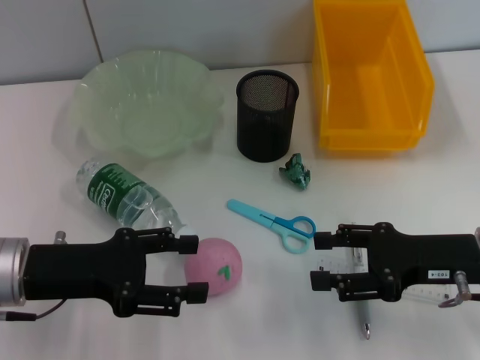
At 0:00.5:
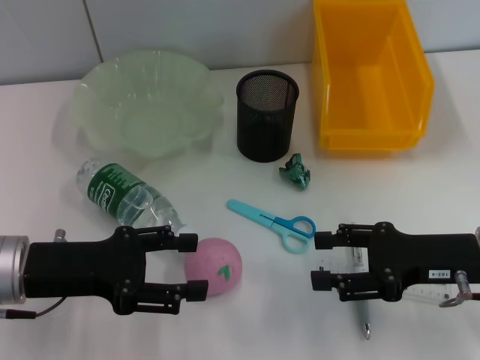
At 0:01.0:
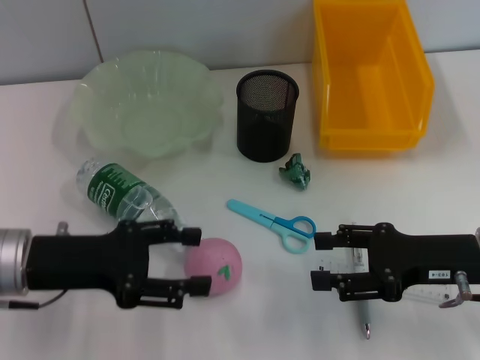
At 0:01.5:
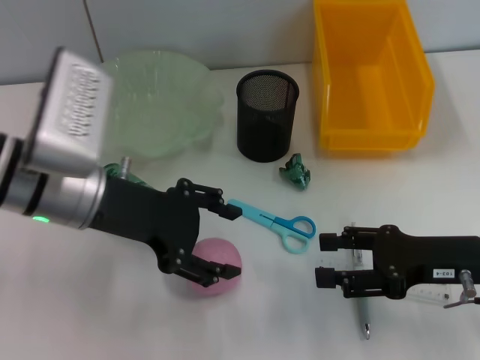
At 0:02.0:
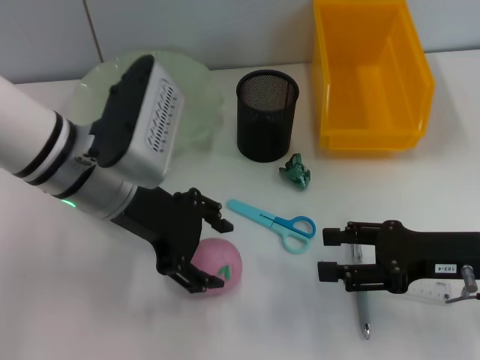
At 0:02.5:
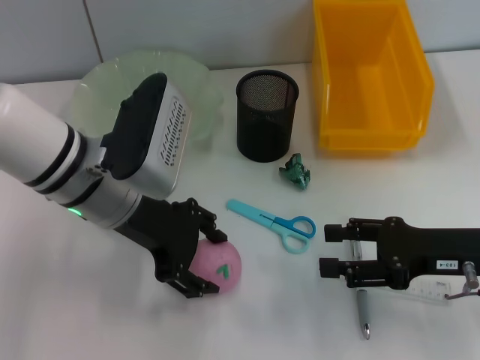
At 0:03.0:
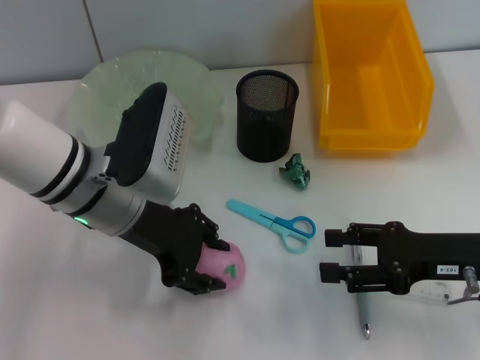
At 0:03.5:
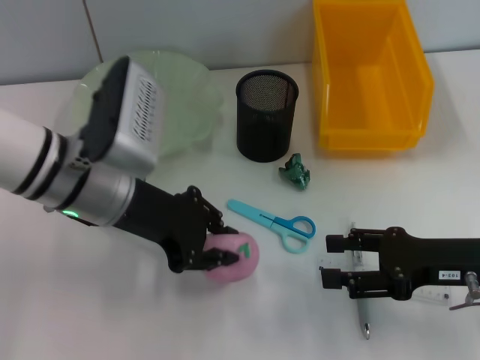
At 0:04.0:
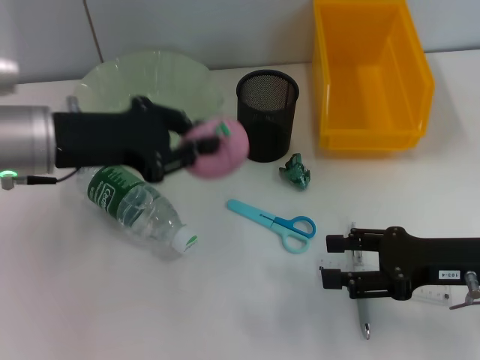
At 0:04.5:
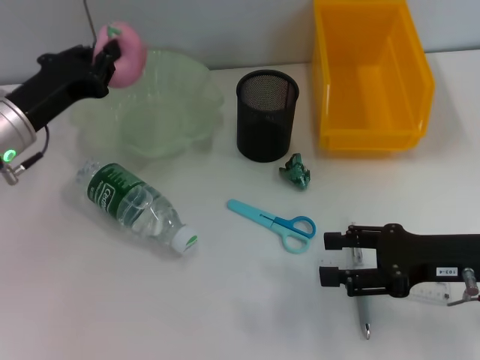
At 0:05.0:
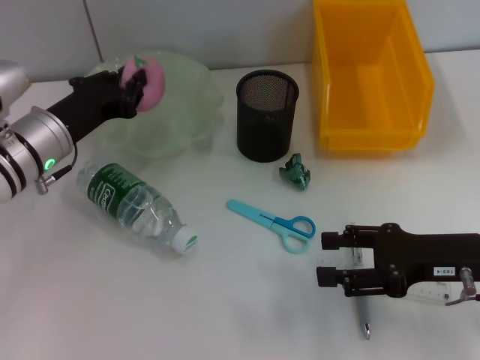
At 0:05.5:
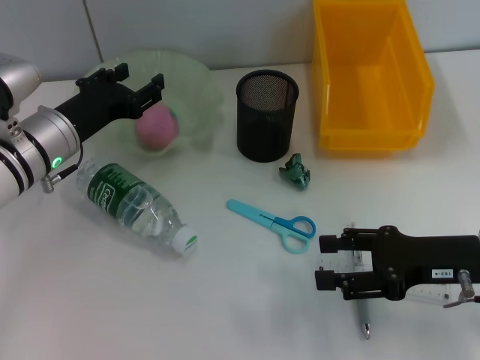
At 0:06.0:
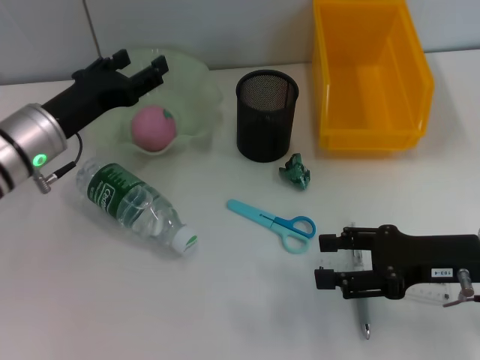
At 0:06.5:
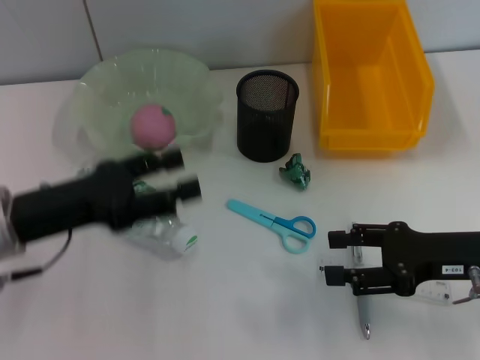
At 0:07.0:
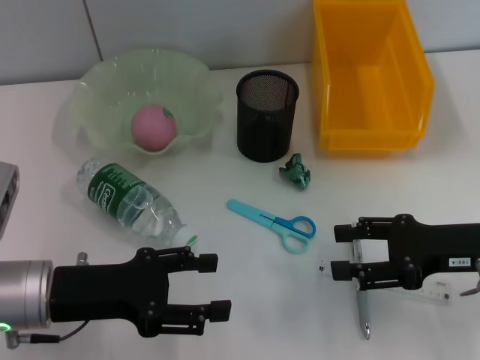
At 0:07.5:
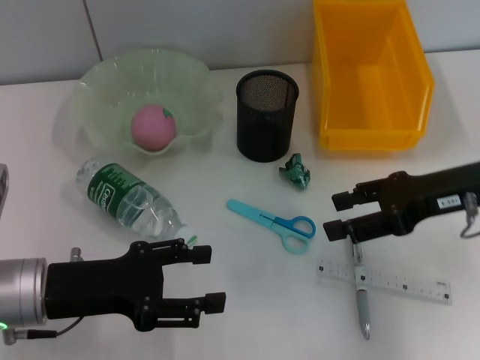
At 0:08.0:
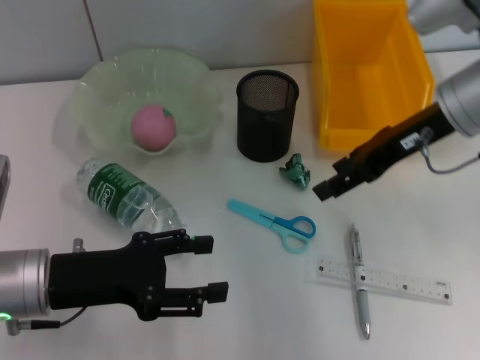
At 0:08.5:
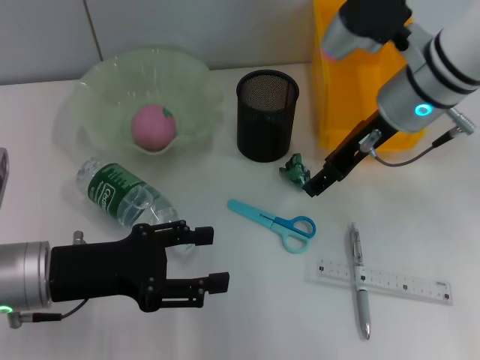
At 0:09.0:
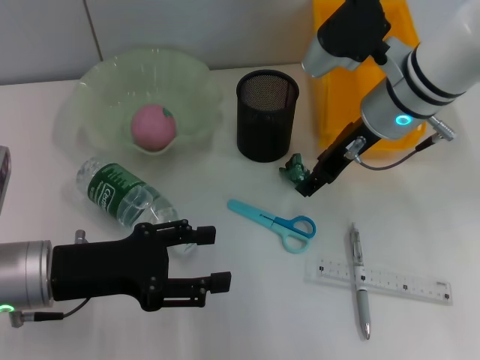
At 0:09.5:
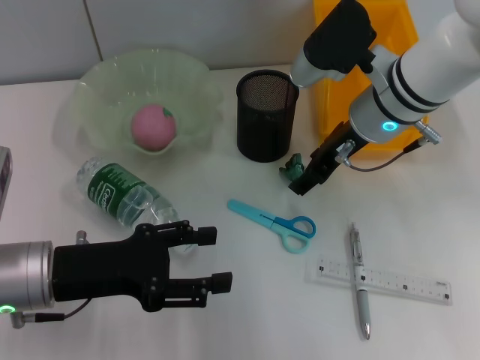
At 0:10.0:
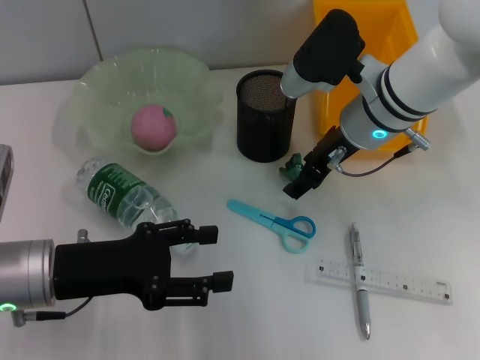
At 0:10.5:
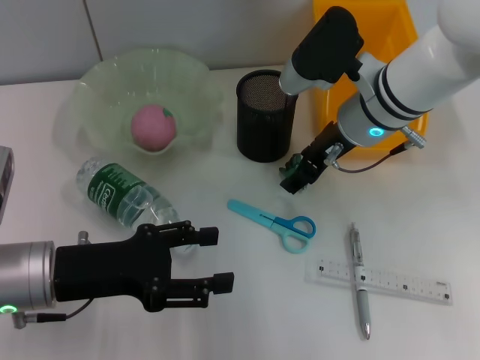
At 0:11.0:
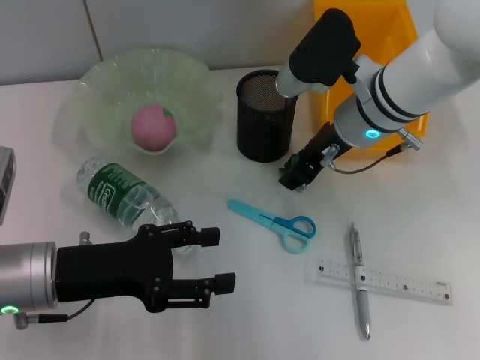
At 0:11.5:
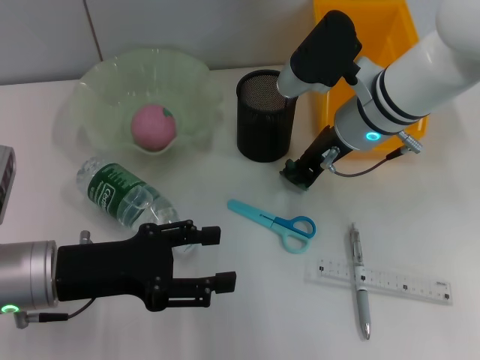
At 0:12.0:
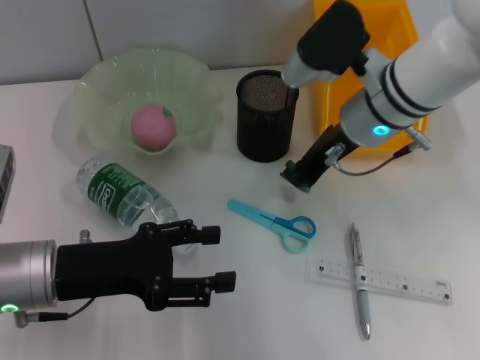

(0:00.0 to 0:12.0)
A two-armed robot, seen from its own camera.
Step, 0:00.0 - 0:03.0: Grab the peach with the left hand.
Step, 0:03.5 - 0:05.5: Place the peach into the fruit bowl with the left hand.
Step, 0:06.0 - 0:11.0: Grab the plastic with the right hand.
0:00.0 - 0:02.0: The left gripper goes approximately 15 cm to the right, upward and forward.
0:02.0 - 0:04.0: The left gripper shifts roughly 5 cm to the left, and closes.
0:04.0 - 0:06.0: The left gripper shifts about 5 cm downward, and opens up.
0:06.0 - 0:08.0: The right gripper heads upward and forward, covering about 15 cm; the left gripper goes roughly 10 cm backward.
0:08.0 - 0:10.0: The right gripper goes about 10 cm to the left and downward.
0:10.0 - 0:12.0: The right gripper closes up.

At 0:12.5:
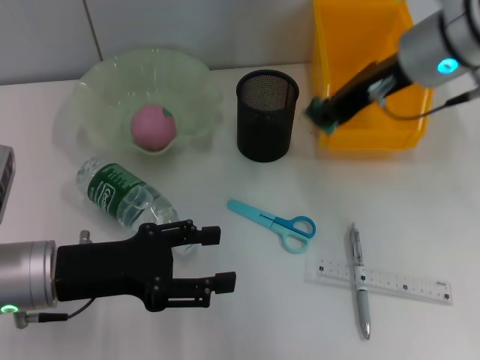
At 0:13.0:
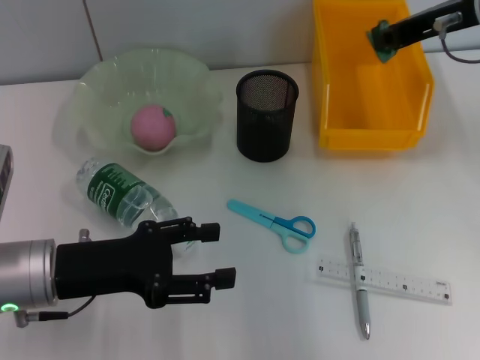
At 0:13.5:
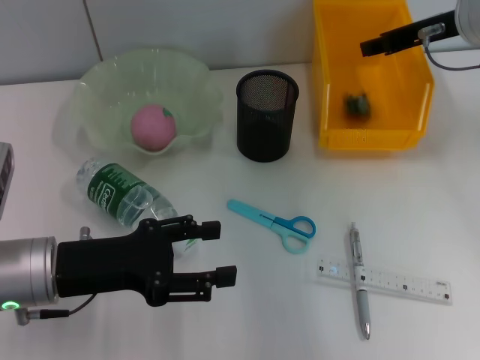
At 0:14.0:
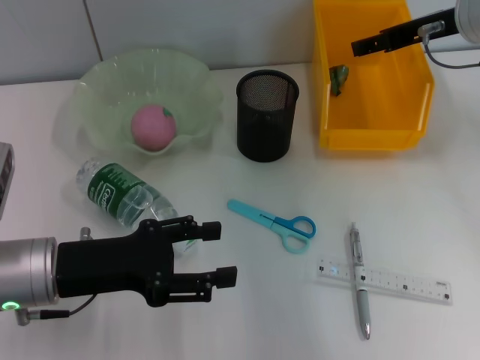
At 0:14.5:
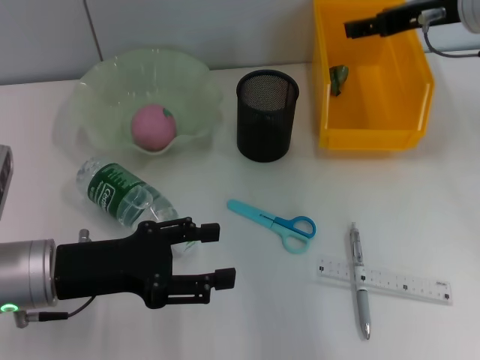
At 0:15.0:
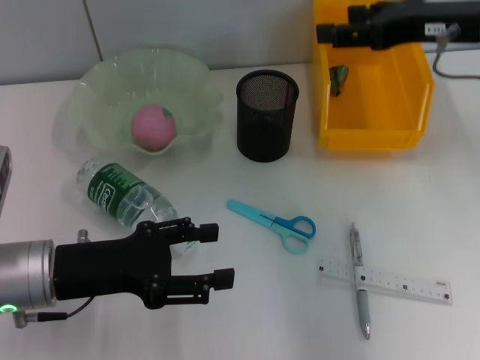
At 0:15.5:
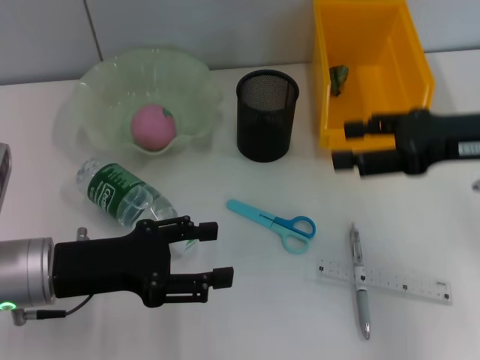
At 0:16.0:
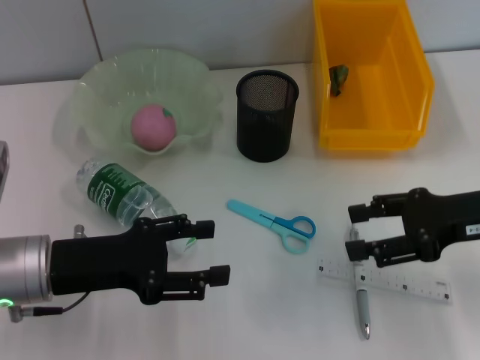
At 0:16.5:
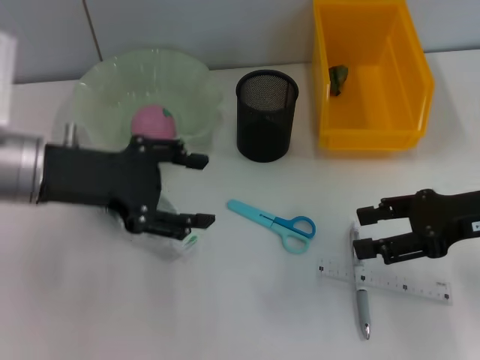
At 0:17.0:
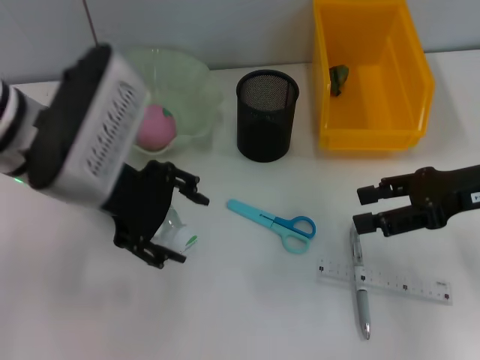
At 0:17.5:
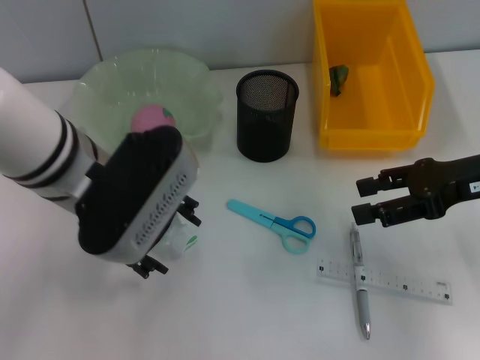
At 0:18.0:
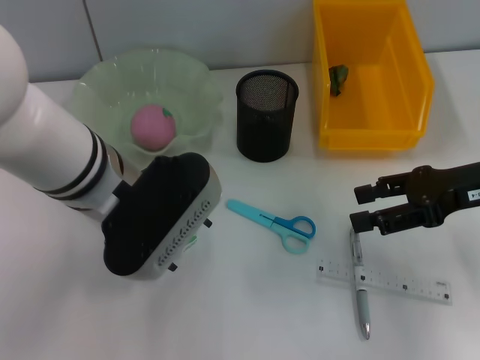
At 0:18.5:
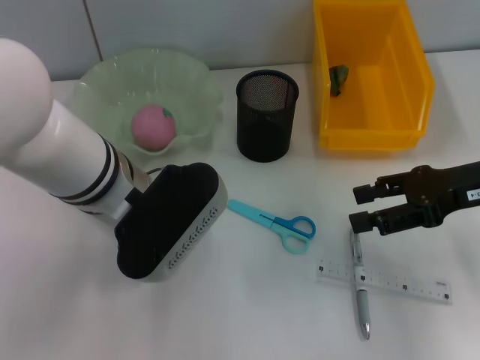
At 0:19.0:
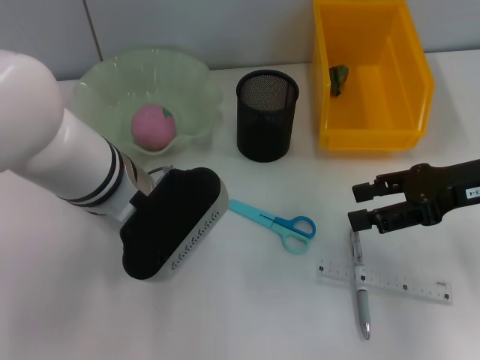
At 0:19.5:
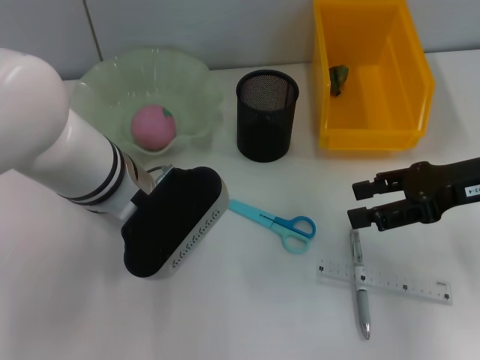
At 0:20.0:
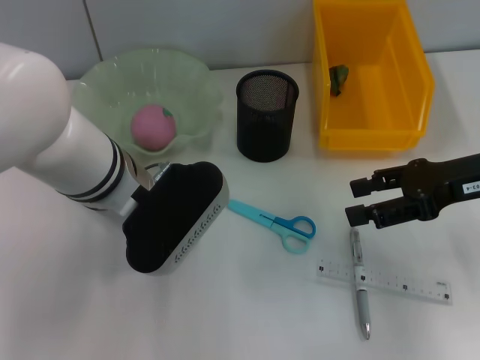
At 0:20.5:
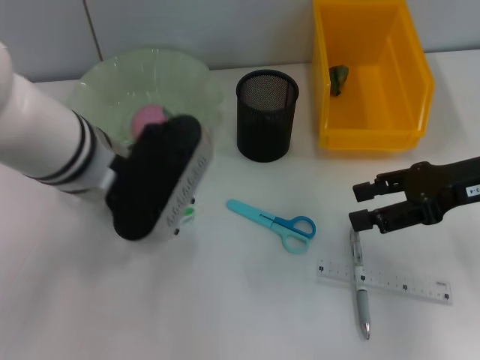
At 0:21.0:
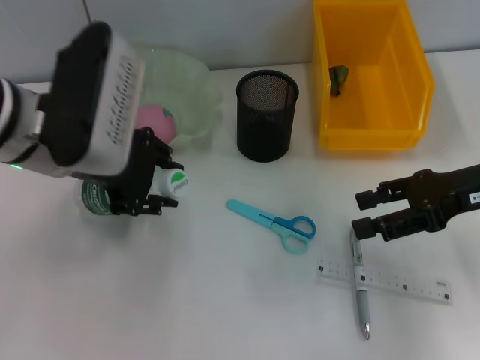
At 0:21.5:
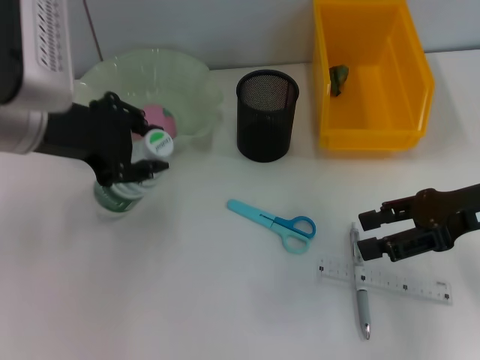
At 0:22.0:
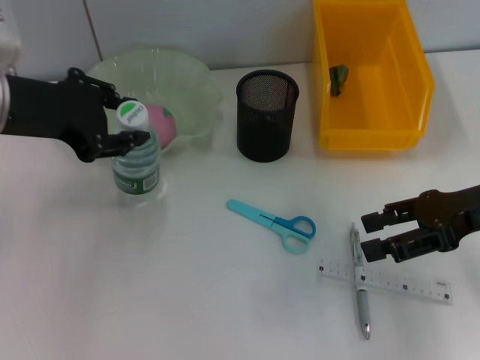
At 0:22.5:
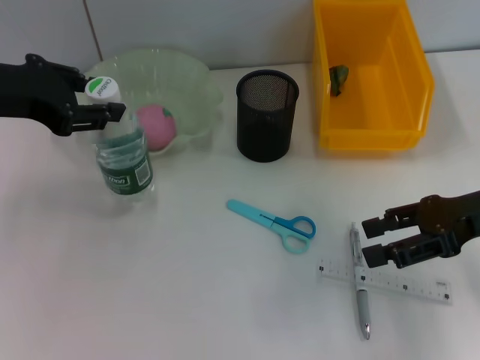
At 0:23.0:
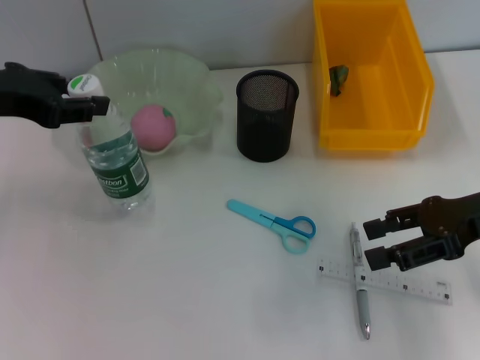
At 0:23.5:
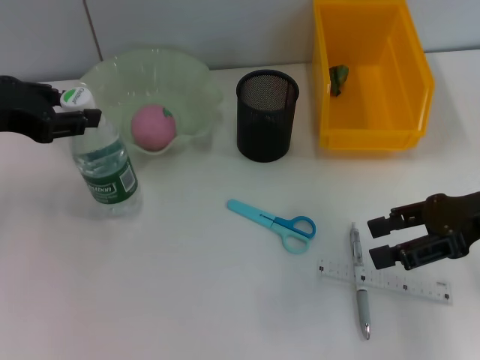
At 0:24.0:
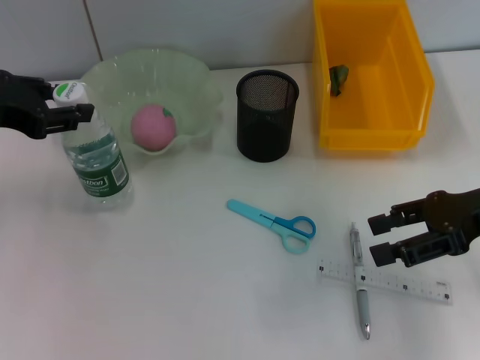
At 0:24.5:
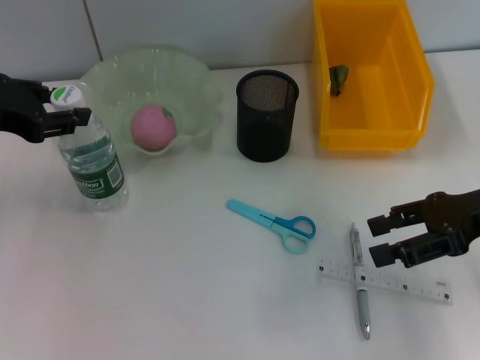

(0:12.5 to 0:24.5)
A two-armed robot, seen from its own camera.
Step, 0:12.5 - 0:13.5: Place the plastic into the trash can with the right hand.
Step, 0:14.0 - 0:20.0: Grab the water bottle with the left hand.
0:12.5 - 0:14.5: The right gripper heads to the right, covering approximately 5 cm, and opens its fingers.
0:14.5 - 0:16.5: The right gripper goes about 15 cm backward and downward. The left gripper heads upward and forward, covering approximately 10 cm.
0:16.5 - 0:18.5: The left gripper goes some 10 cm to the right.
0:18.5 - 0:20.5: The left gripper closes its fingers.
0:20.5 - 0:22.5: The left gripper shifts about 15 cm to the left and upward.
0:22.5 - 0:24.5: The grippers make only small movements.

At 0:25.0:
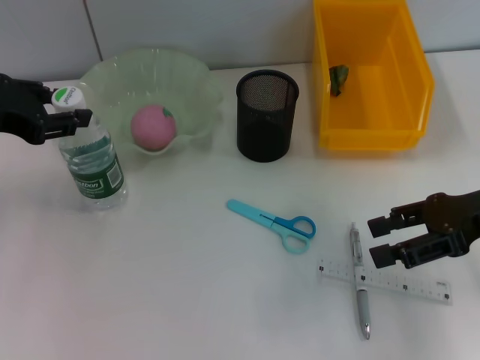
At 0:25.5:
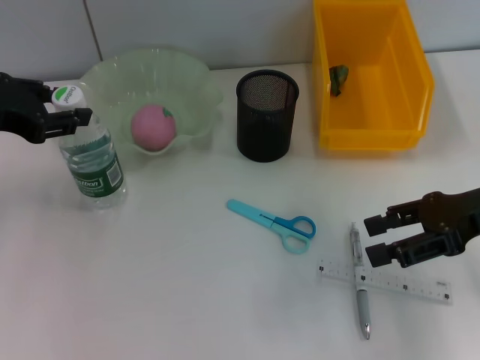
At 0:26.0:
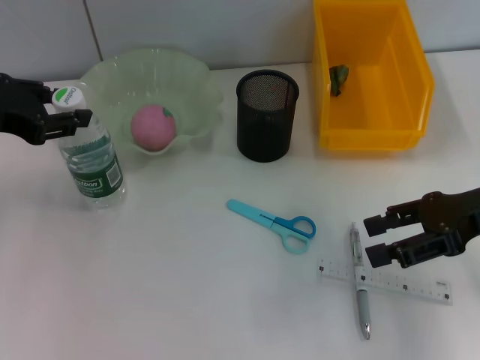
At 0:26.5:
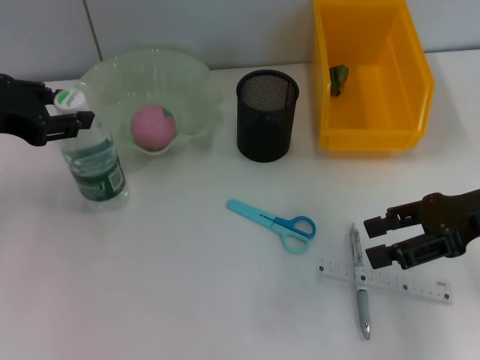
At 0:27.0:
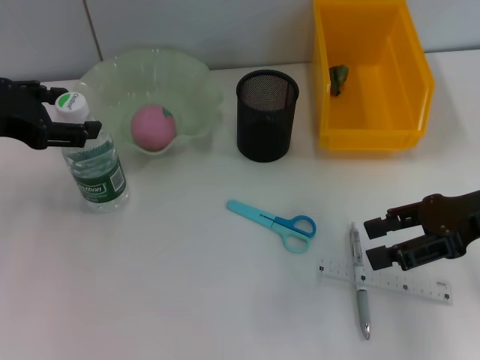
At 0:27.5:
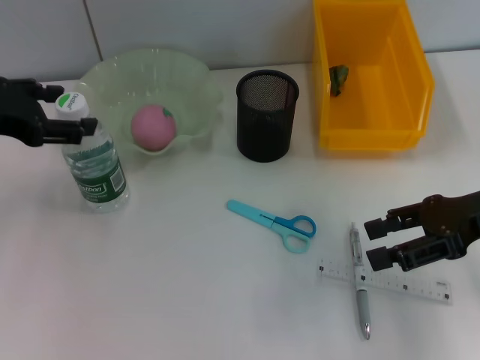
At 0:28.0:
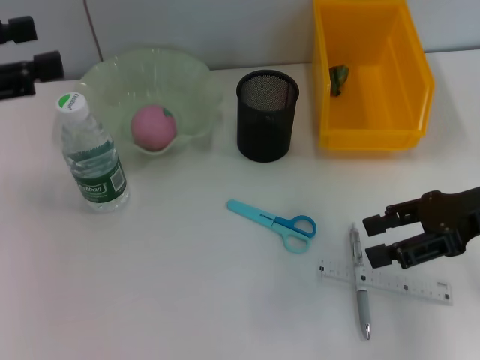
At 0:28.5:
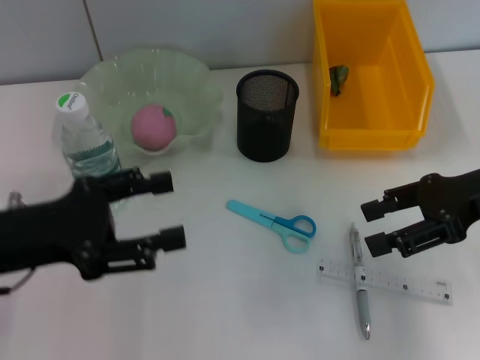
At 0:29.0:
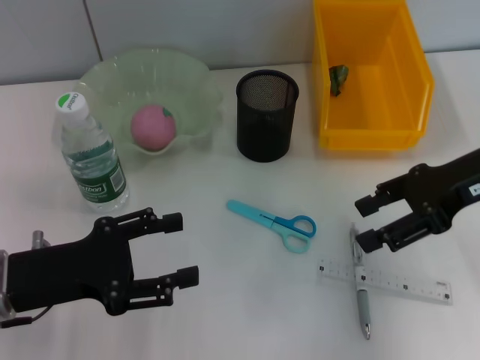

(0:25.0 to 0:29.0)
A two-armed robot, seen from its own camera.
0:25.0 - 0:27.0: The left gripper opens.
0:27.0 - 0:29.0: The left gripper moves downward and backward, approximately 15 cm. Meanwhile the right gripper shifts by approximately 5 cm.
